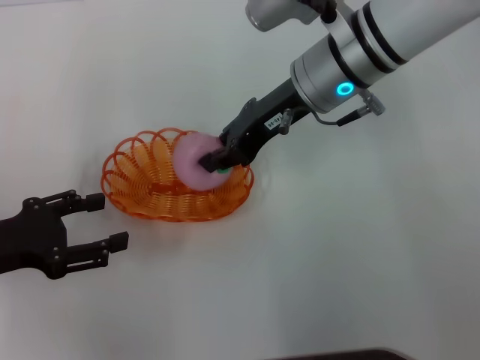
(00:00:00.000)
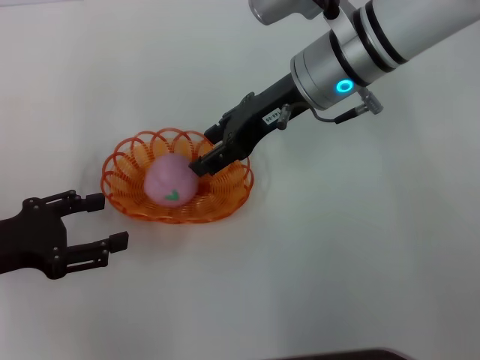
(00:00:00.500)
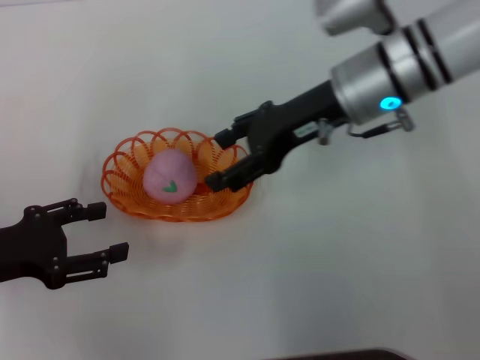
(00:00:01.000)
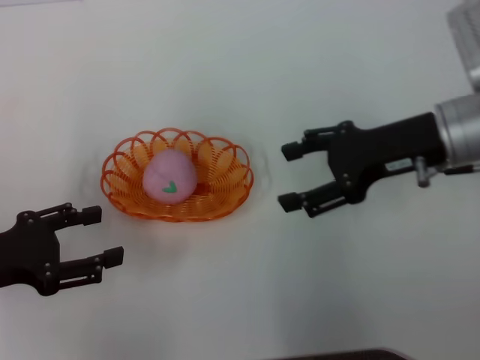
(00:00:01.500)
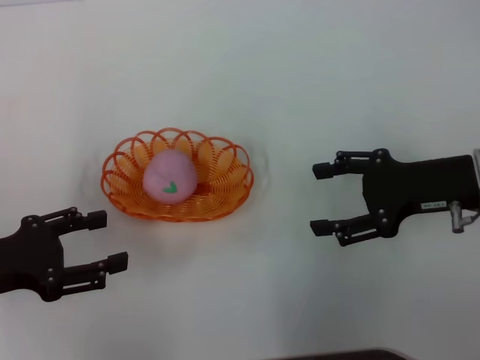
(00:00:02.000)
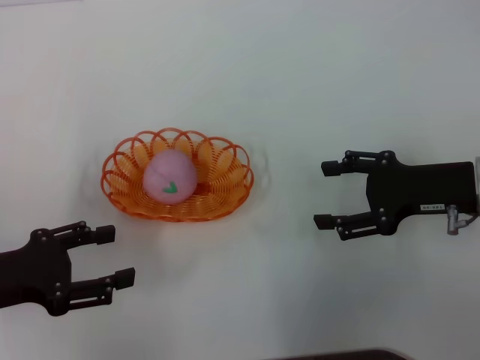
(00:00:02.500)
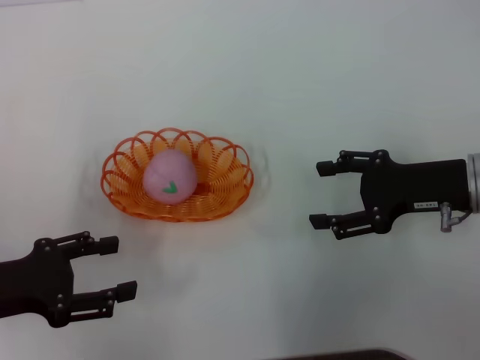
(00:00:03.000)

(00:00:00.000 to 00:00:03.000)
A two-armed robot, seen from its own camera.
00:00:00.000 - 00:00:01.500: The right gripper heads to the right and backward, covering roughly 15 cm, and opens its fingers.
00:00:01.500 - 00:00:03.000: The right gripper is displaced downward by about 5 cm.
